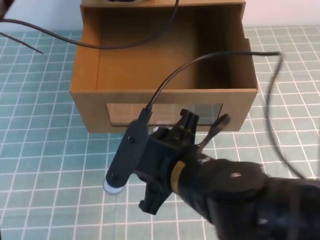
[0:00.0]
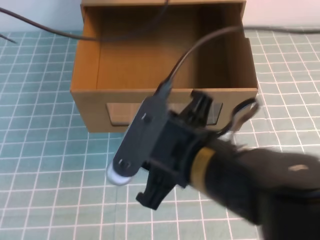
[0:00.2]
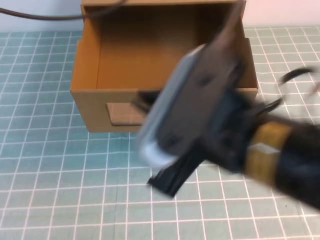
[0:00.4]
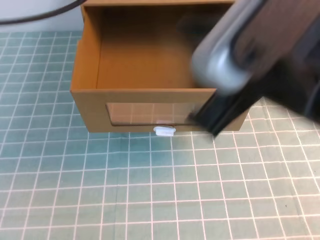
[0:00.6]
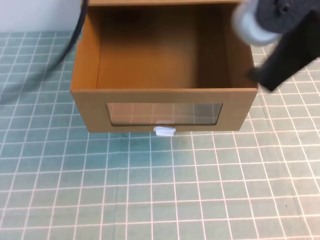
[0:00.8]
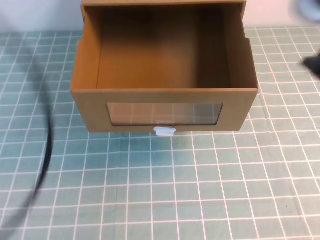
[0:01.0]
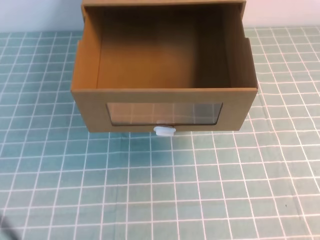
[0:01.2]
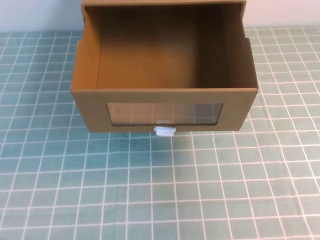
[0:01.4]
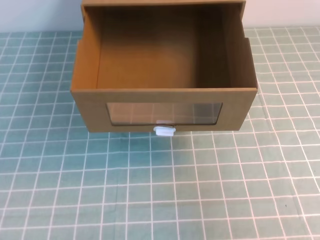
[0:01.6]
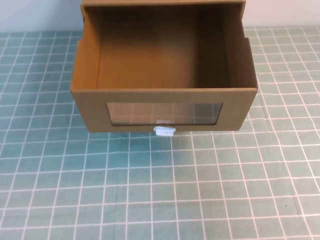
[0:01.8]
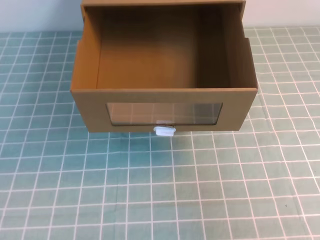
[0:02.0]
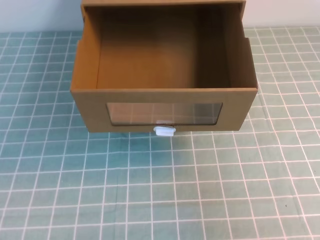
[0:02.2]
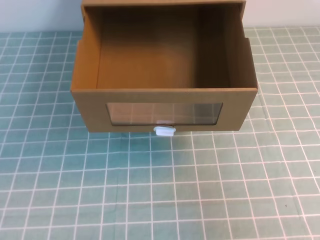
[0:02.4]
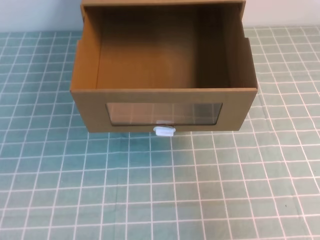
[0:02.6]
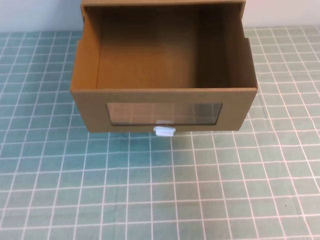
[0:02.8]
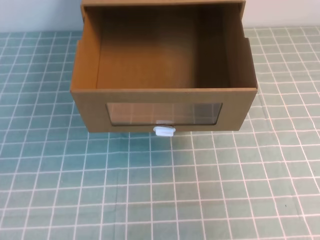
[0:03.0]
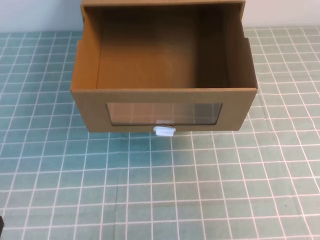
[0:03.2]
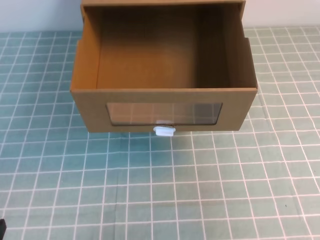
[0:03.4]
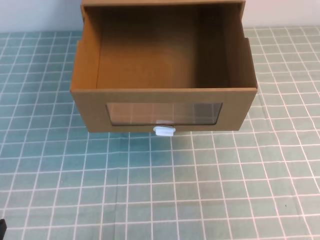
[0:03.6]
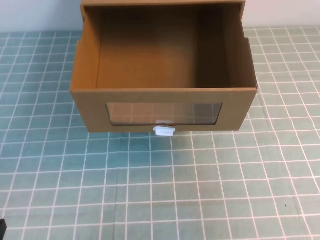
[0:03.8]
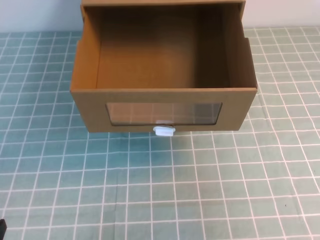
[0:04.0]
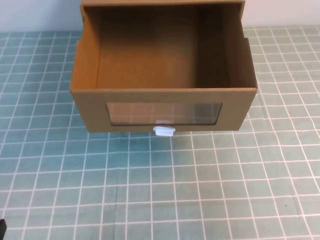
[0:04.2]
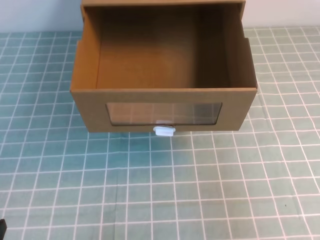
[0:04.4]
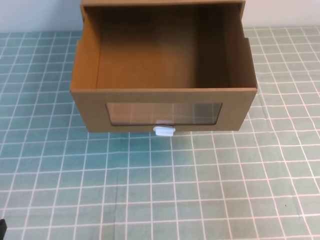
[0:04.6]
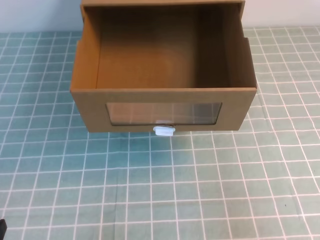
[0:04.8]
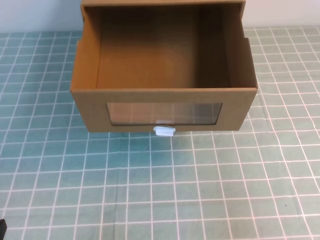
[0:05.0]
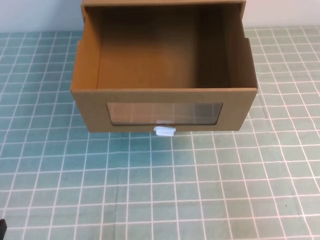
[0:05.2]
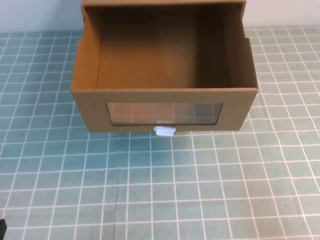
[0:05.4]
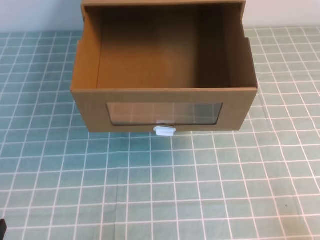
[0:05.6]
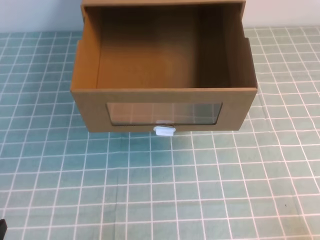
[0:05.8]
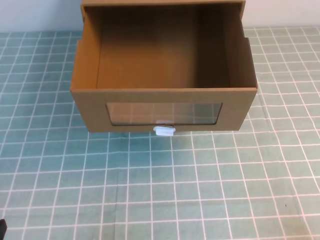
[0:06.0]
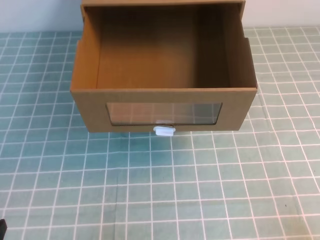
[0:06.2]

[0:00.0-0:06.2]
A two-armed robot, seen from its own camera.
Task of the whole recording: open the shoebox on the cyan tablecloth.
Step, 0:00.0 to 0:06.2: Open the shoe box.
0:00.0 to 0:01.6: The right gripper moves to the right, roughly 20 cm, and closes its fingers; the left gripper shifts roughly 40 cm backward.
0:04.6 to 0:06.2: The right gripper heads downward, covering some 15 cm.

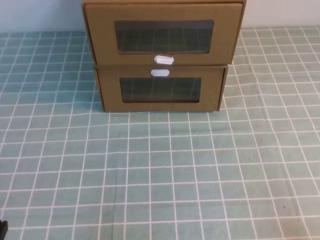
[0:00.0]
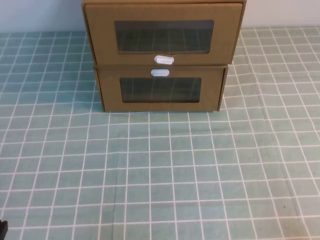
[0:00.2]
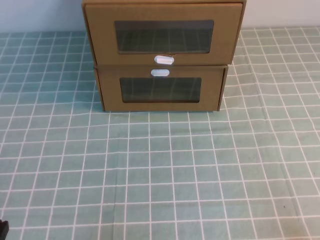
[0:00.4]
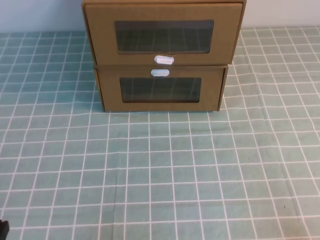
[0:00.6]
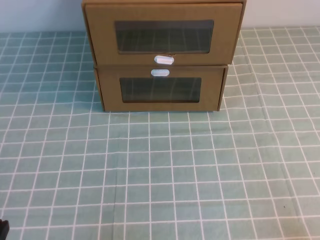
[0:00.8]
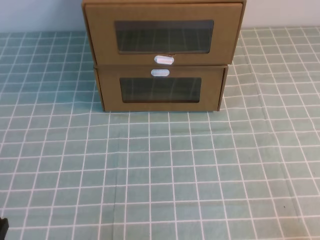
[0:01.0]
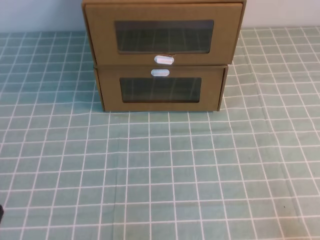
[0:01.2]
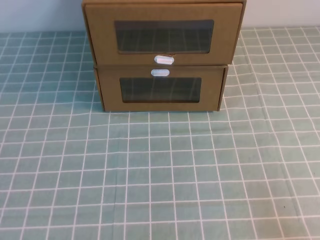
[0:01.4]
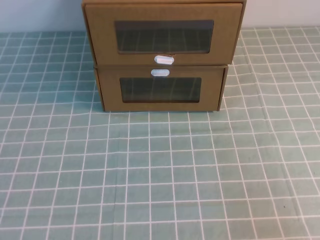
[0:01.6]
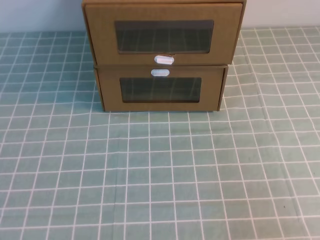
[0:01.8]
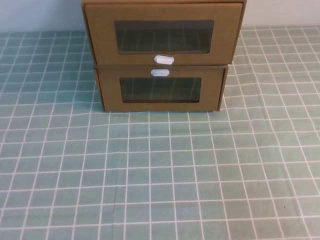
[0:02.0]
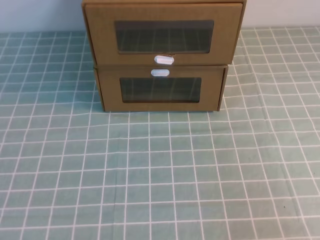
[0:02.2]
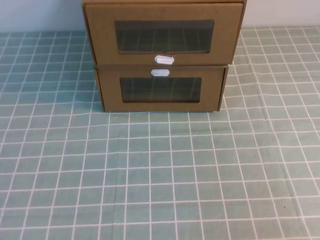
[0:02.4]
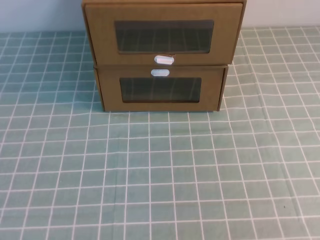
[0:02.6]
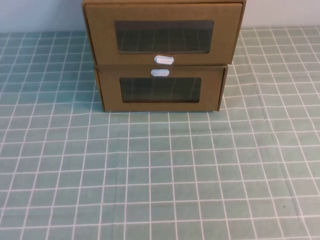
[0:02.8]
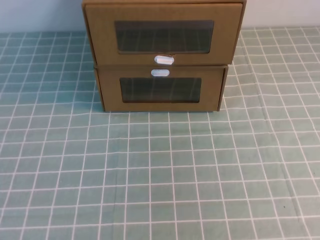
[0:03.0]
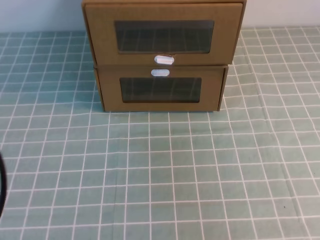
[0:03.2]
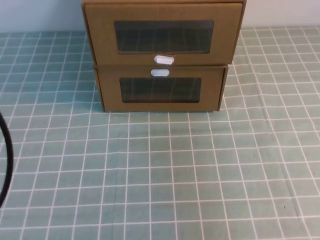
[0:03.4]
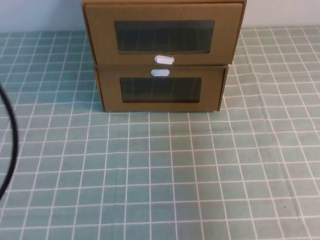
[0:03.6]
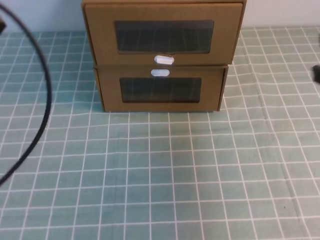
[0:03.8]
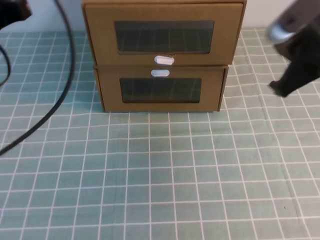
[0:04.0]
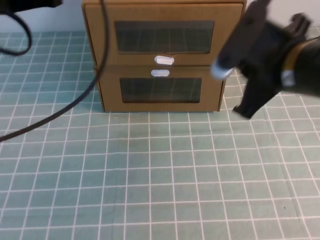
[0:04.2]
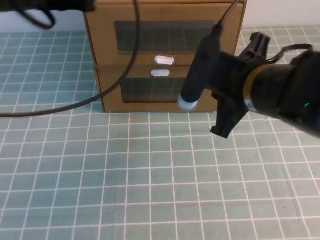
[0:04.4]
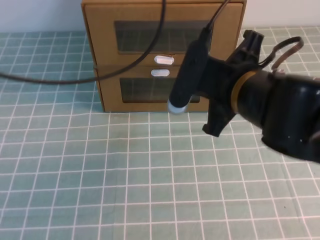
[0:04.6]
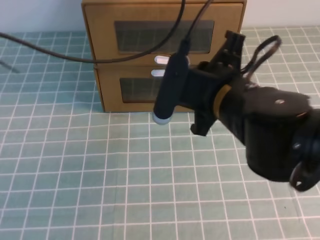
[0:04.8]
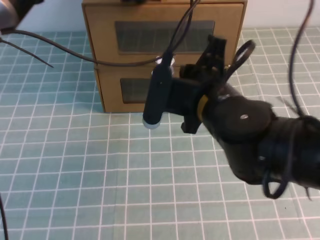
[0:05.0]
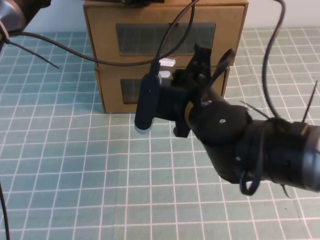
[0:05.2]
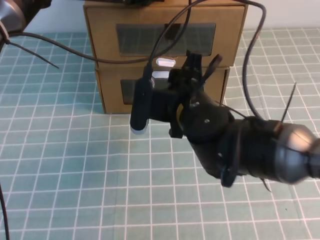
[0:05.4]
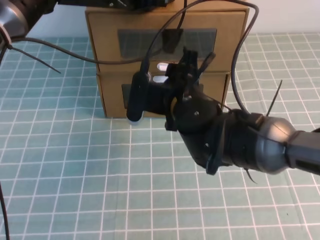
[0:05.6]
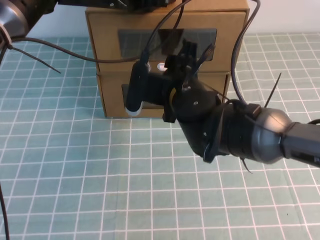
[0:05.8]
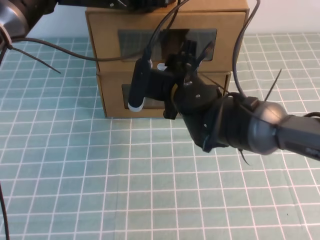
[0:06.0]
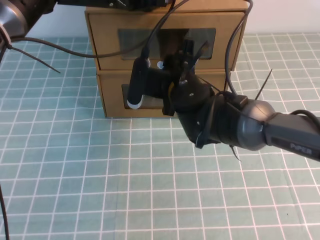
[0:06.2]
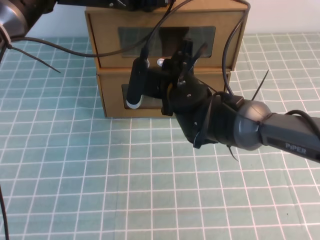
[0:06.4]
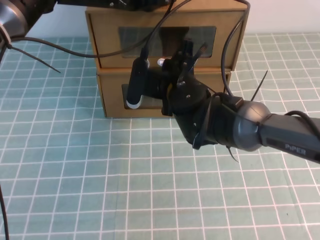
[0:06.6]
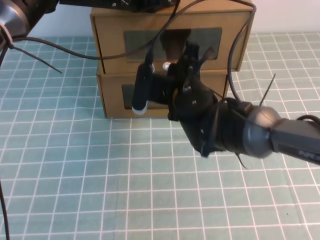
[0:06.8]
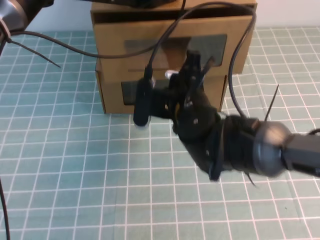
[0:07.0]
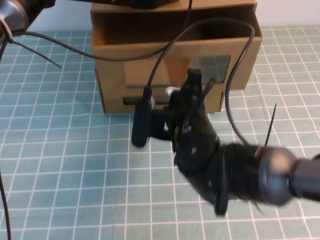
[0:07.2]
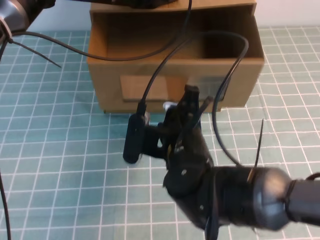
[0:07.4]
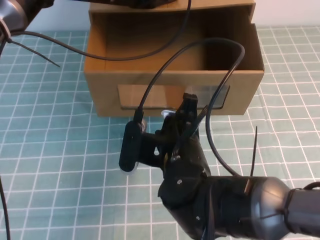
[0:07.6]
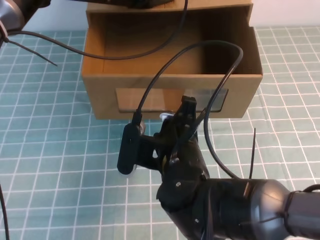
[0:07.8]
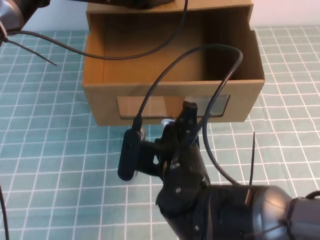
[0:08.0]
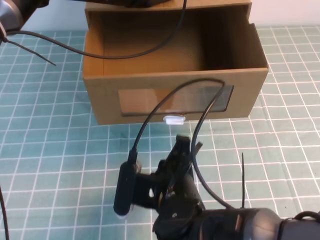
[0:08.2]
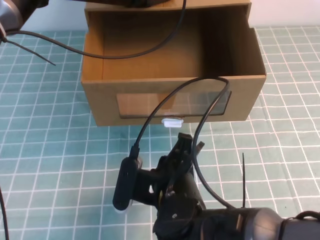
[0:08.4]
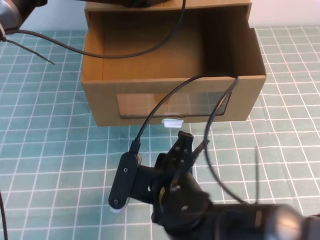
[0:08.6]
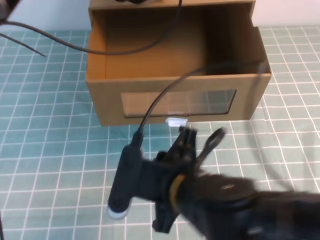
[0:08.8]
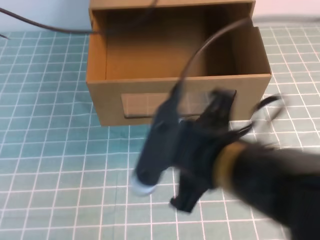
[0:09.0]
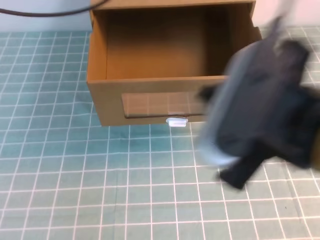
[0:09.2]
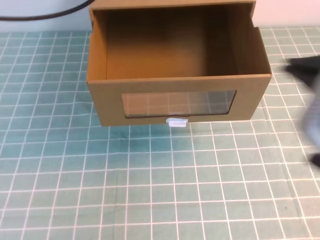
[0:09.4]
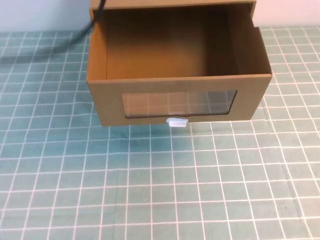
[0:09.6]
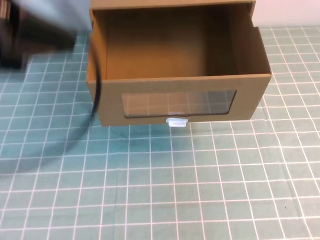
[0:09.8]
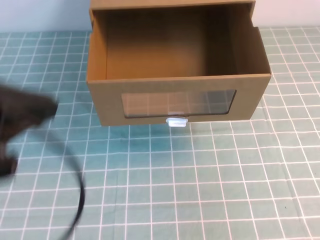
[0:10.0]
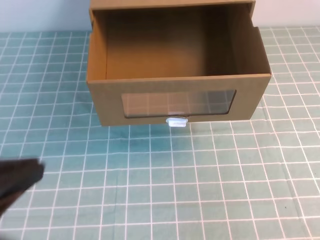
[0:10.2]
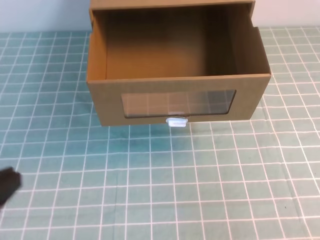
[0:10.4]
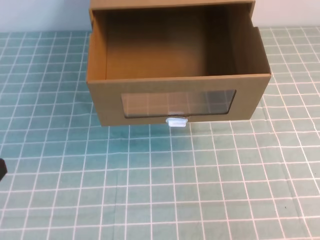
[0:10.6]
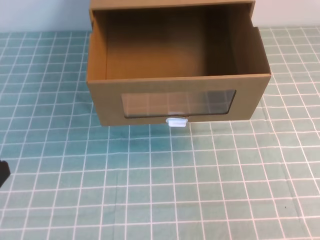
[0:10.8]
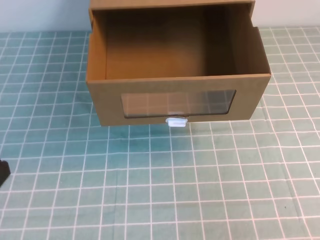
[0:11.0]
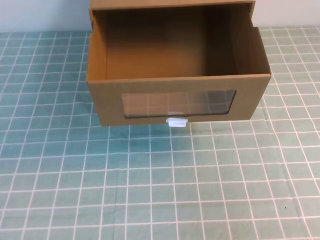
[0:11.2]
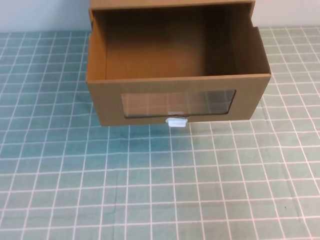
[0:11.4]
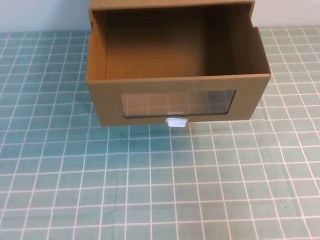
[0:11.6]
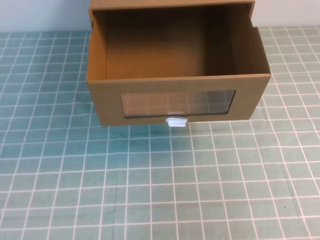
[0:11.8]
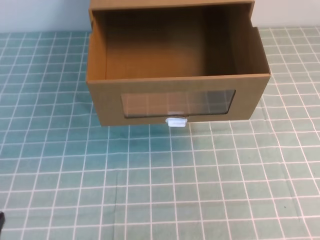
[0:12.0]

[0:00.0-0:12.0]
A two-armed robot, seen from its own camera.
Task of the whole recording: open the shoebox on the cyan tablecloth.
0:03.0 to 0:04.4: The right gripper goes roughly 30 cm forward, to the left and downward; the left gripper is displaced forward and to the right by about 25 cm.
0:04.4 to 0:06.0: The right gripper heads to the left, forward and downward, covering roughly 15 cm, and opens its fingers, while the left gripper travels forward, to the right and downward by approximately 20 cm.
0:06.0 to 0:07.6: The right gripper is displaced backward by approximately 10 cm, and closes.
0:07.6 to 0:09.0: The right gripper moves upward and backward, approximately 15 cm; the left gripper travels upward by roughly 5 cm.
0:09.0 to 0:10.4: The right gripper is displaced to the right by about 25 cm. The left gripper heads backward, covering some 35 cm.
0:10.4 to 0:12.0: The left gripper moves downward, some 15 cm.
